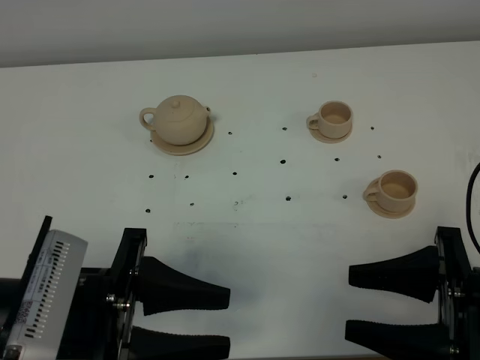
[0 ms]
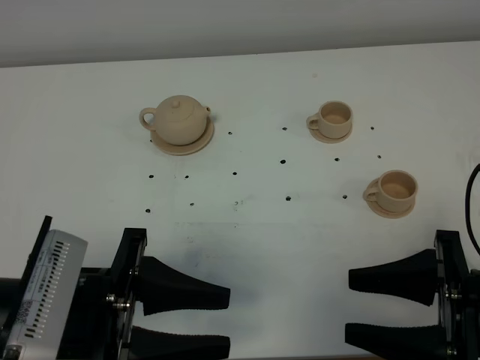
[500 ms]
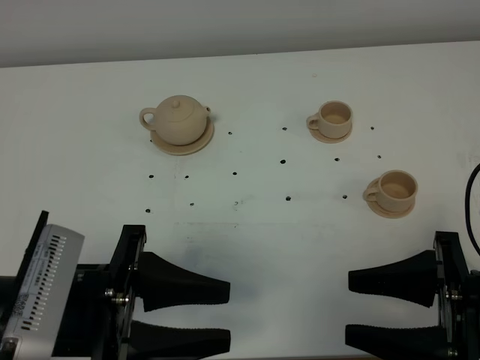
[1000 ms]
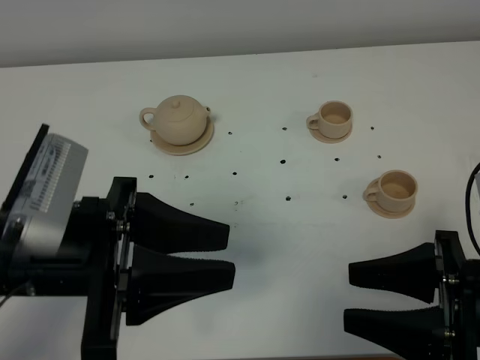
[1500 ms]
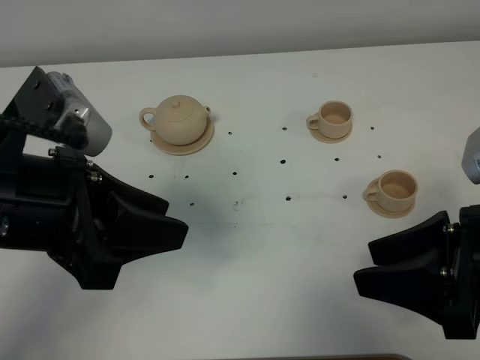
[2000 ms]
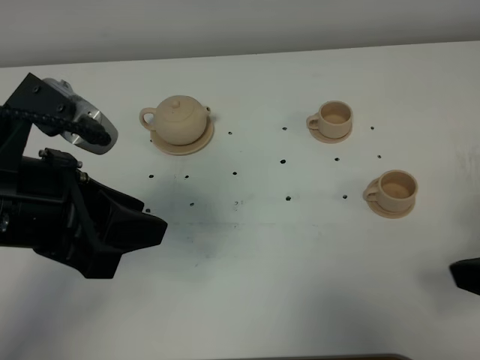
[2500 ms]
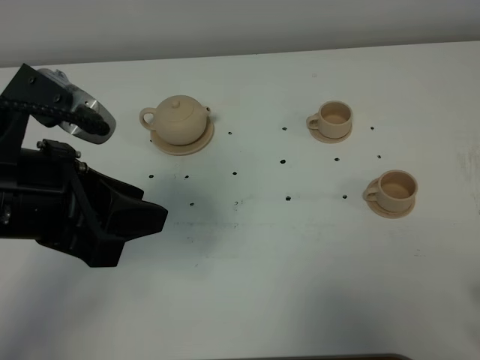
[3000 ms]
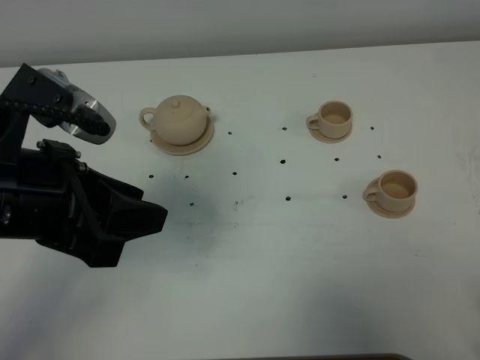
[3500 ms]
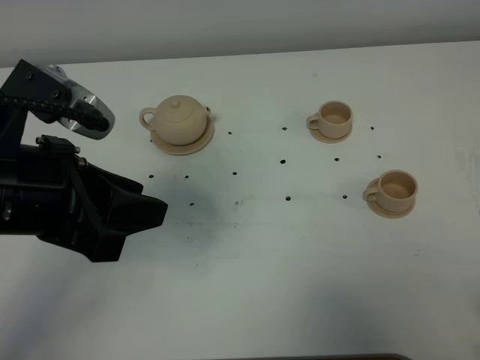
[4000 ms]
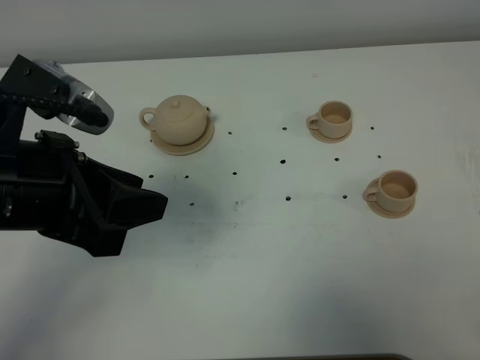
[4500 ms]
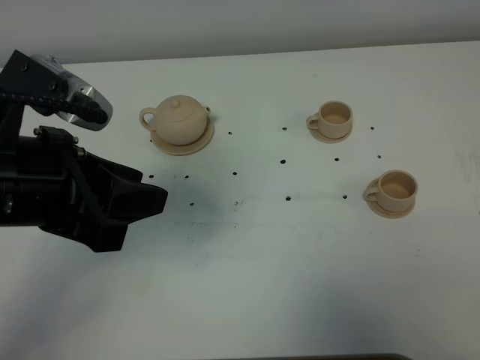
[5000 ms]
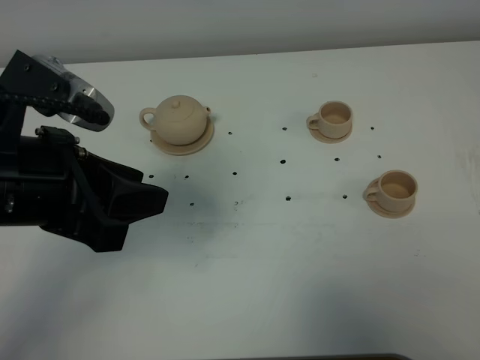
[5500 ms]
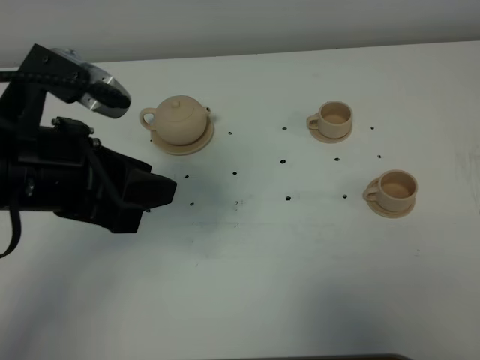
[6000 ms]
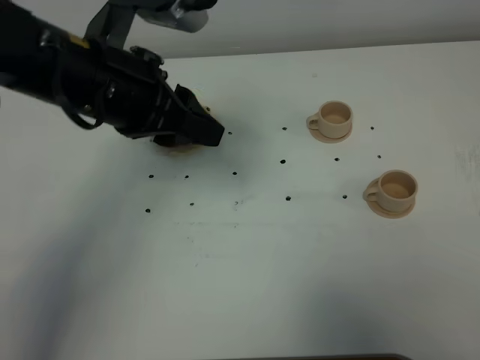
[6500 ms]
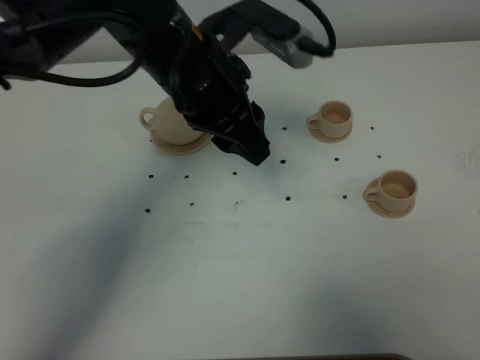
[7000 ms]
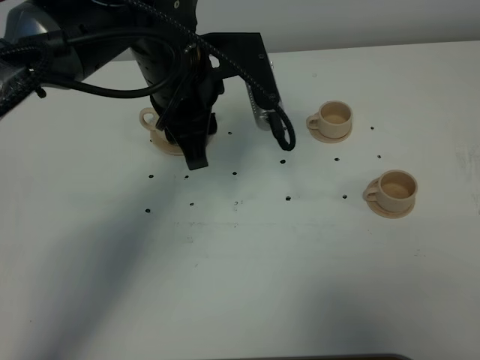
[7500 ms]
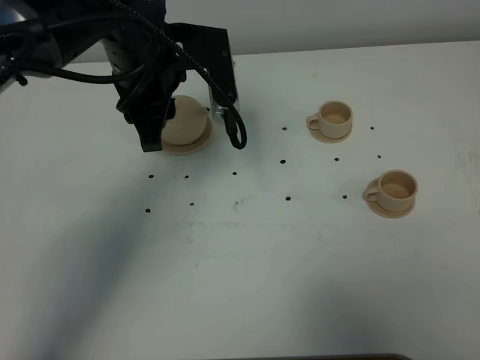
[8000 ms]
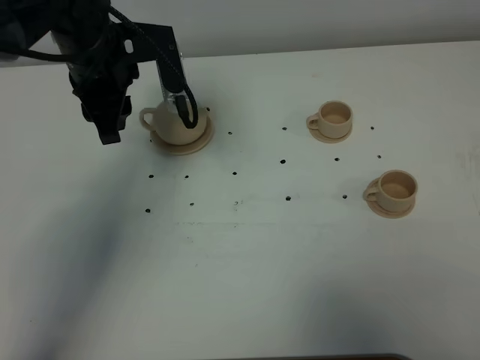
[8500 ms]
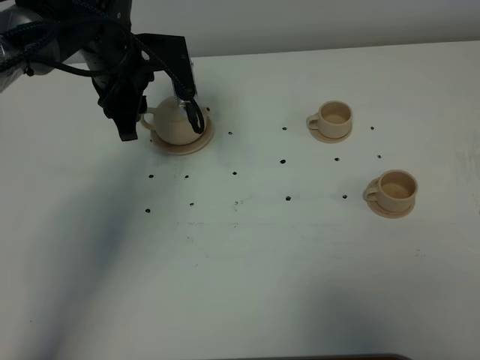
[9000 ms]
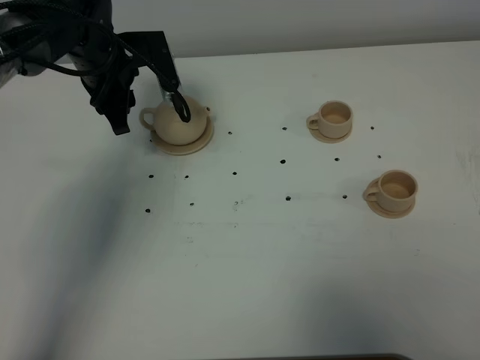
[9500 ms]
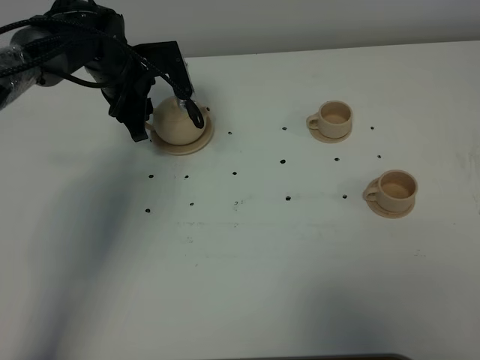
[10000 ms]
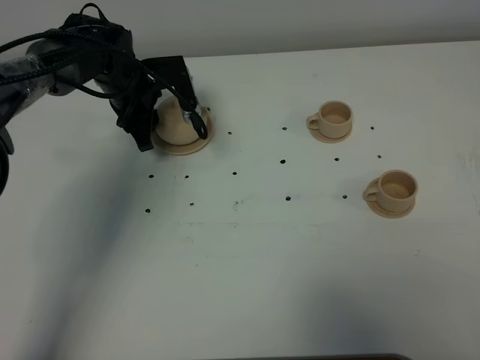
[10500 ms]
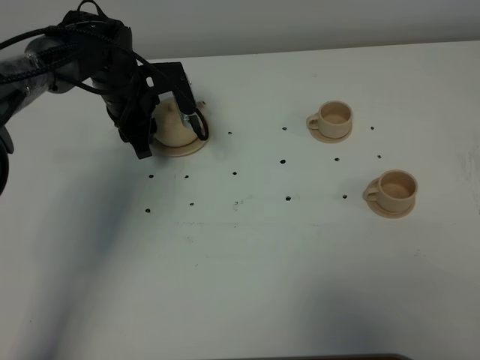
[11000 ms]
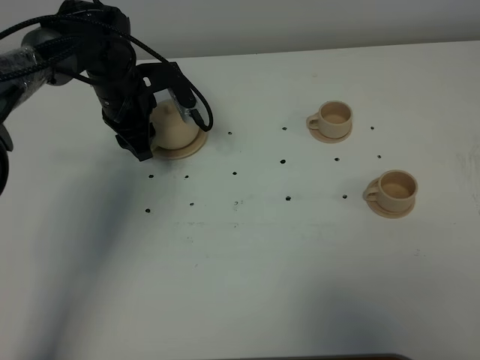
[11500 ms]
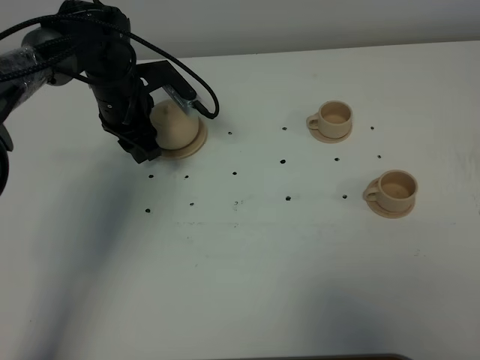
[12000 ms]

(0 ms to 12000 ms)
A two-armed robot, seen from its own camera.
Task of the whole recording: grasp the brown teapot and pour the tea into the two brown teacups one by one, put the brown teapot back in its original place.
0 ms - 2000 ms: The left gripper shifts roughly 10 cm upward and forward; the right gripper changes place by roughly 5 cm.
2000 ms - 4000 ms: The right gripper is displaced backward and to the right by about 10 cm.
6000 ms - 8000 ms: The left gripper goes about 20 cm forward and to the right.
8000 ms - 10000 ms: The left gripper travels downward, forward and to the left by roughly 20 cm.

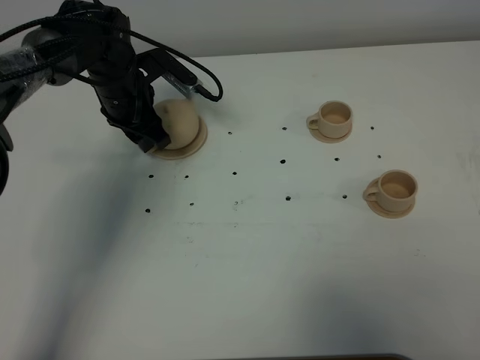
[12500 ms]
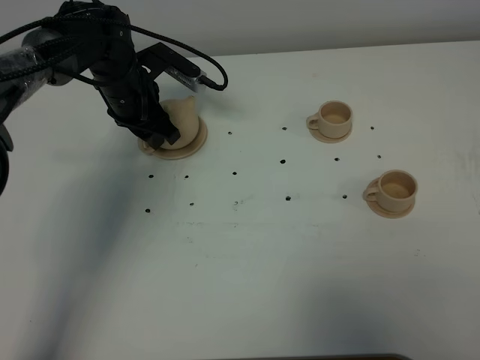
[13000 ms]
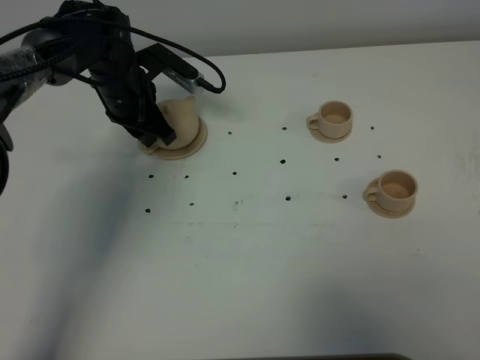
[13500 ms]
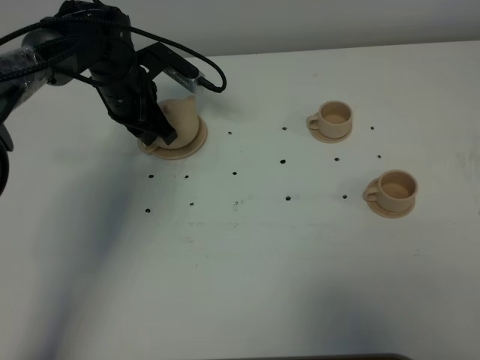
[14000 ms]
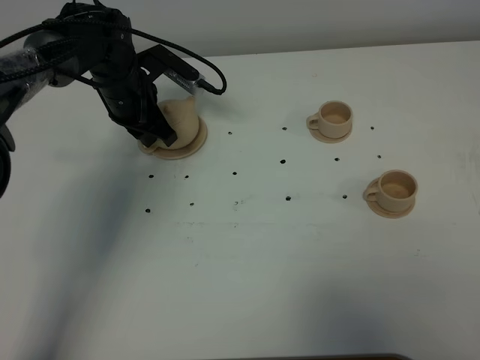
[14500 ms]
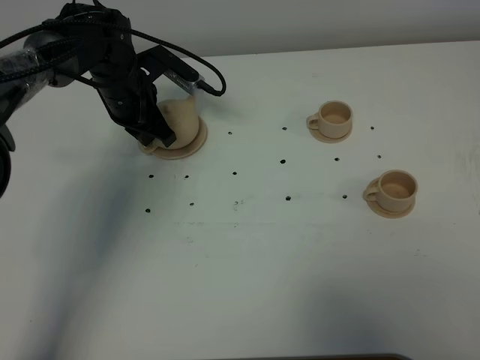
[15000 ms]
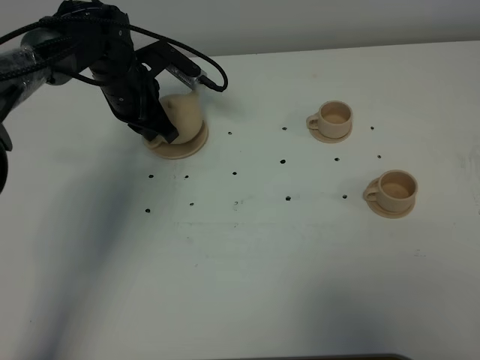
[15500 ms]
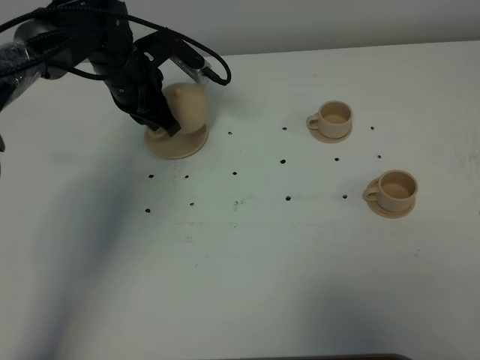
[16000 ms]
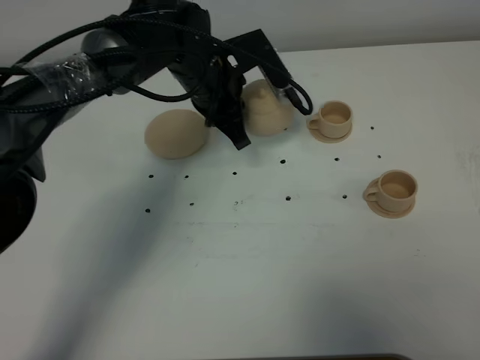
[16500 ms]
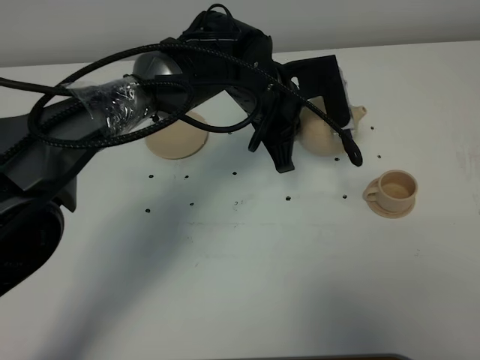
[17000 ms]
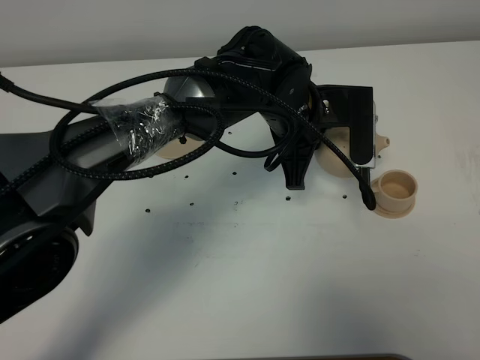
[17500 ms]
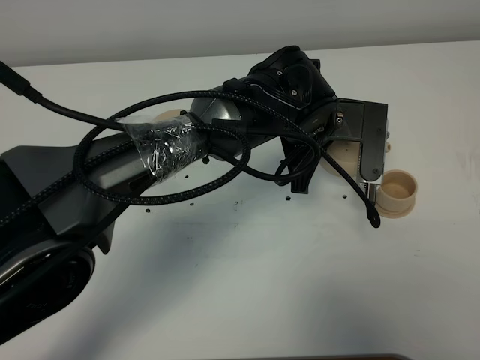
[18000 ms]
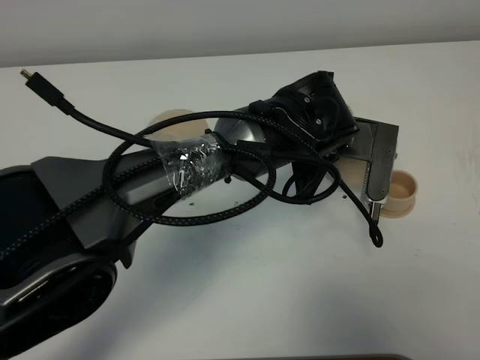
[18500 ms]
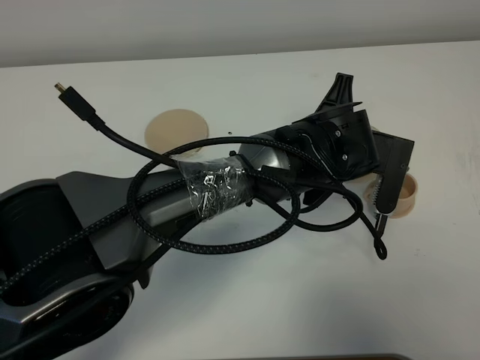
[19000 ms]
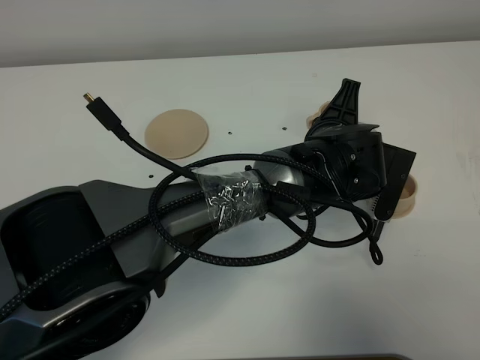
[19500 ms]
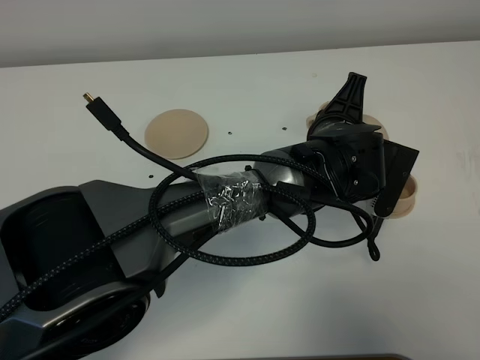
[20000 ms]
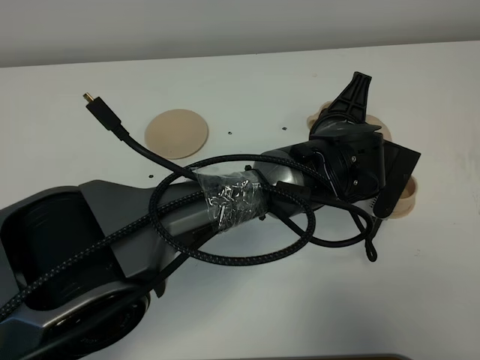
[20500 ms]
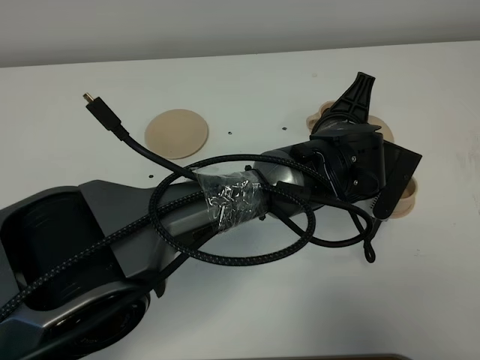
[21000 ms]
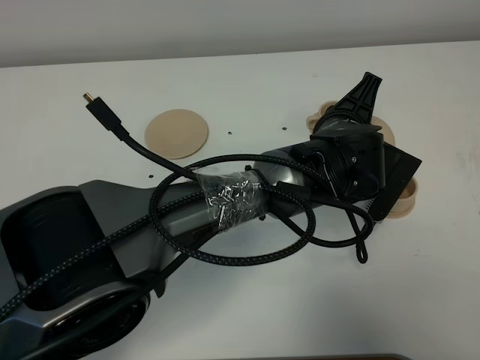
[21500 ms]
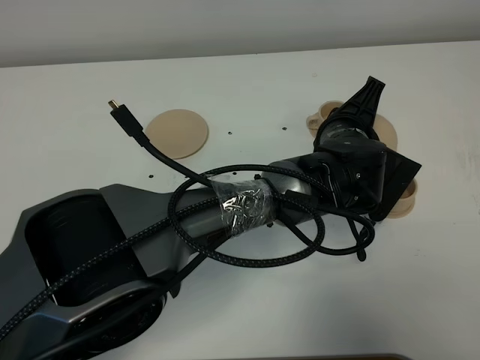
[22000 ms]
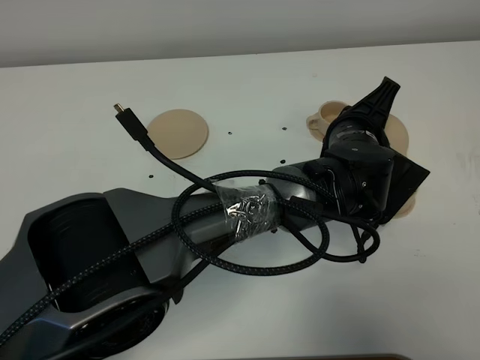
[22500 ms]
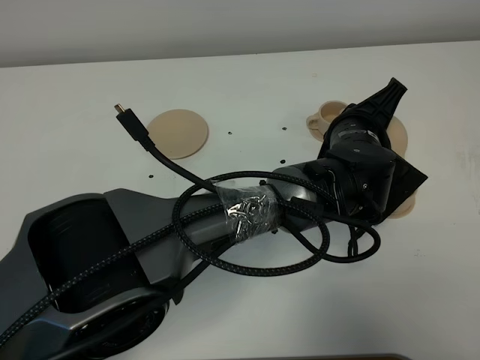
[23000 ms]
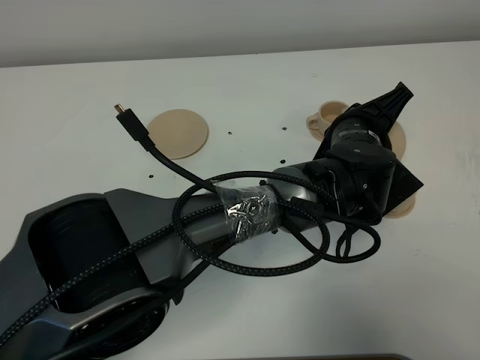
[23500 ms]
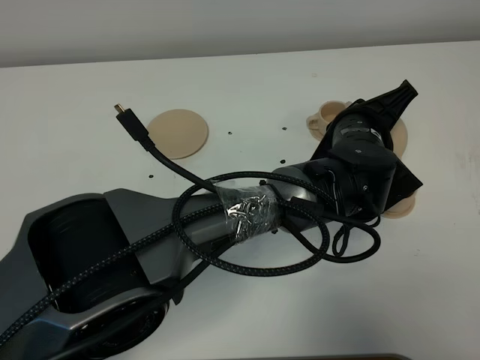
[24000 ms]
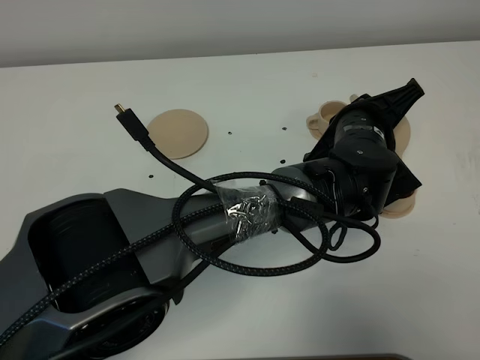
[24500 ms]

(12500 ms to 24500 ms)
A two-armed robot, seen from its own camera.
Task of the whole recording: grasp the brown teapot and pour the tea into the two brown teacups one by one, put the brown teapot back in its original place.
Step, 12500 ms - 15500 ms: Pick up the teapot with the left gripper.
12500 ms - 14500 ms: The left gripper closes.
14500 ms - 16500 ms: The left gripper heads to the right, covering approximately 15 cm, and closes up.
16500 ms - 18500 ms: The left gripper is displaced to the right and backward by roughly 15 cm.

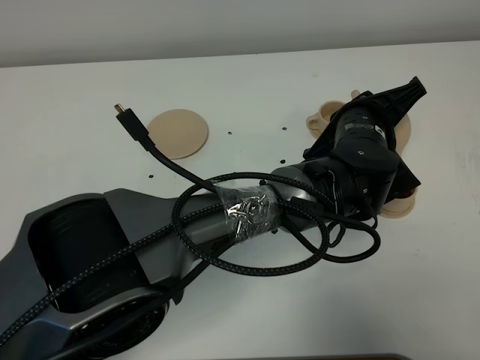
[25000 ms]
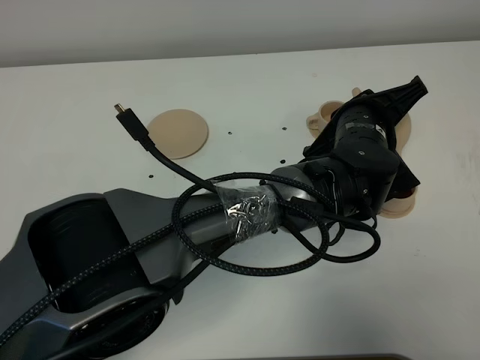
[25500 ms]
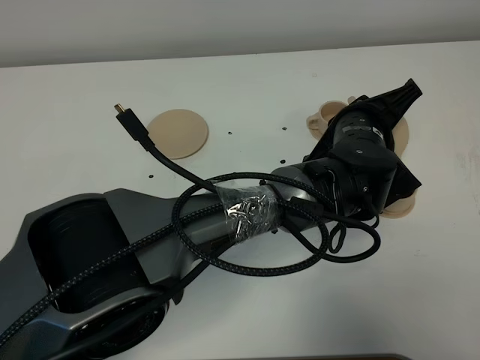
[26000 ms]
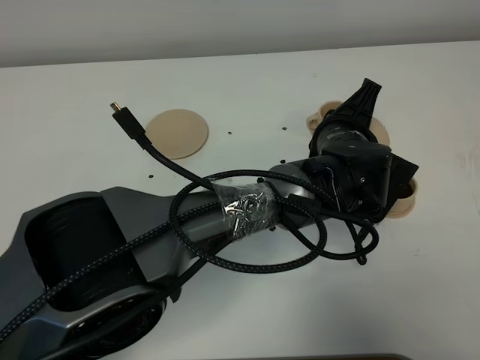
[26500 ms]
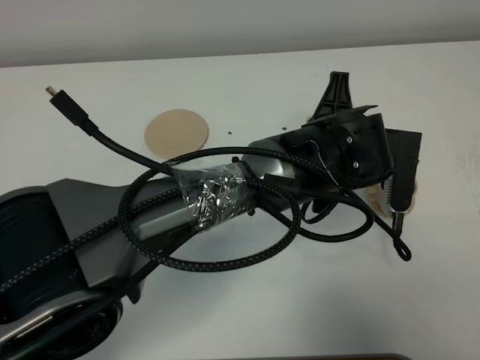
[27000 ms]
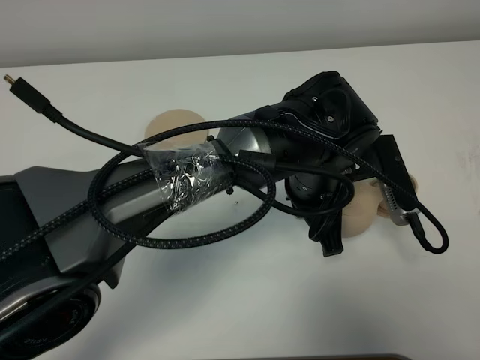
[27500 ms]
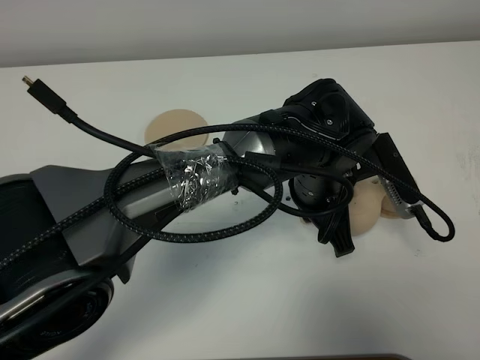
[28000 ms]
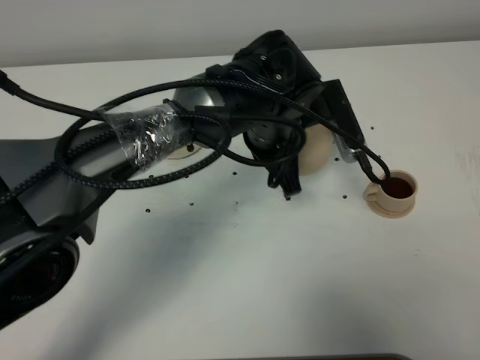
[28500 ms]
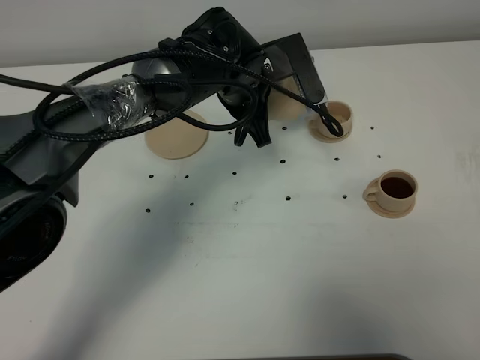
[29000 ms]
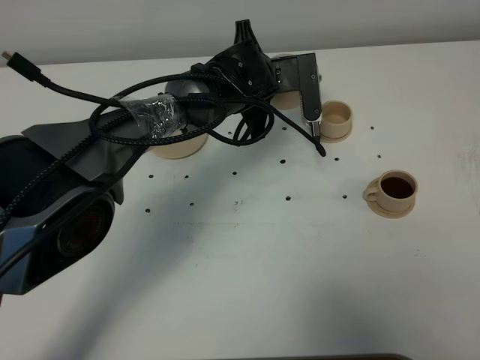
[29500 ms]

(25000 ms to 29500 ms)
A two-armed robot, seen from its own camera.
Task of the whole recording: grasp the brown teapot and pour the tea into the two brown teacups one by one, put the brown teapot back in its original place.
25000 ms - 27000 ms: The left gripper ends up approximately 5 cm from where it was.
27000 ms - 29500 ms: The left gripper travels forward and to the left by roughly 15 cm.
